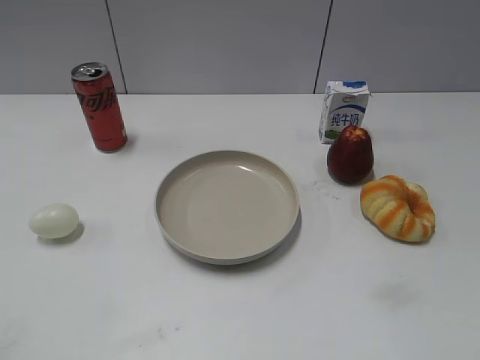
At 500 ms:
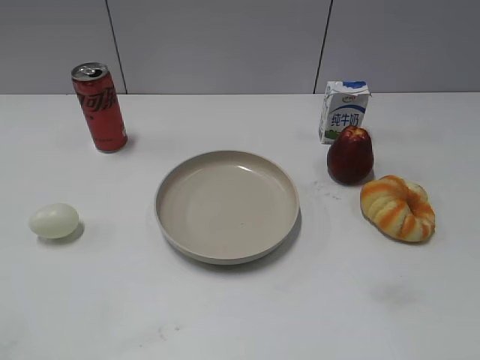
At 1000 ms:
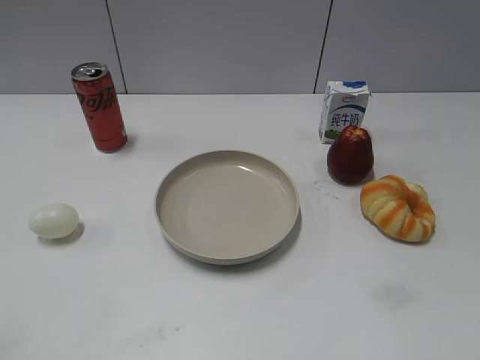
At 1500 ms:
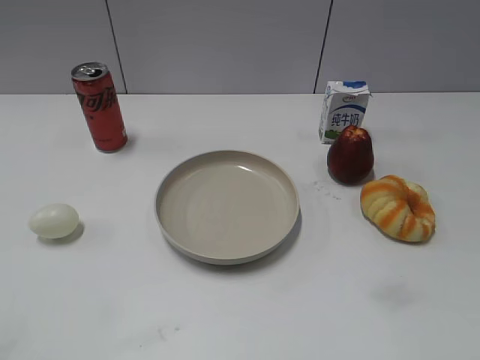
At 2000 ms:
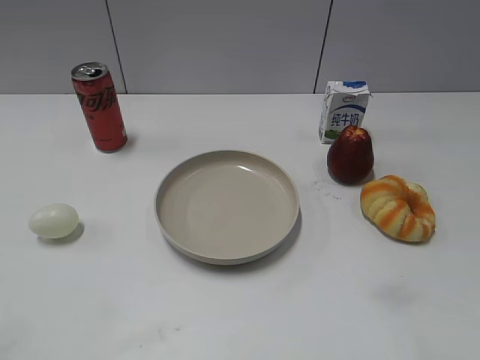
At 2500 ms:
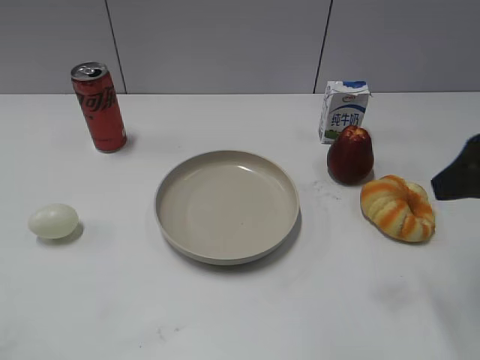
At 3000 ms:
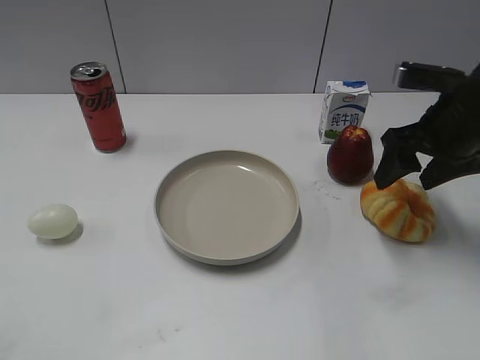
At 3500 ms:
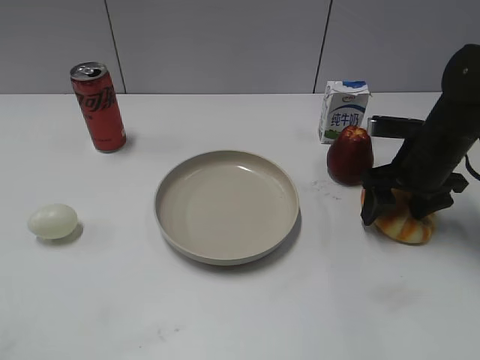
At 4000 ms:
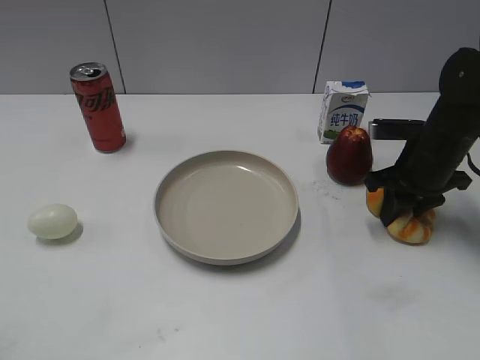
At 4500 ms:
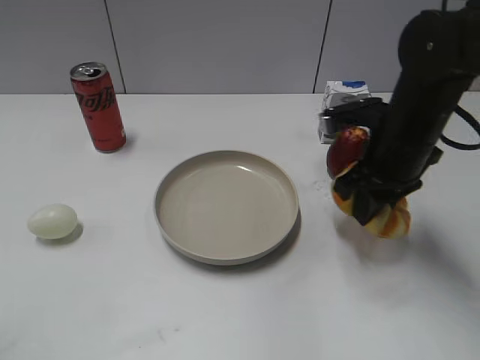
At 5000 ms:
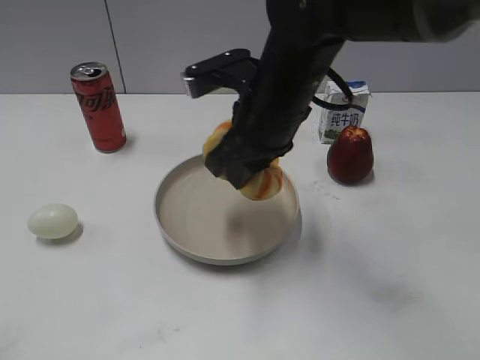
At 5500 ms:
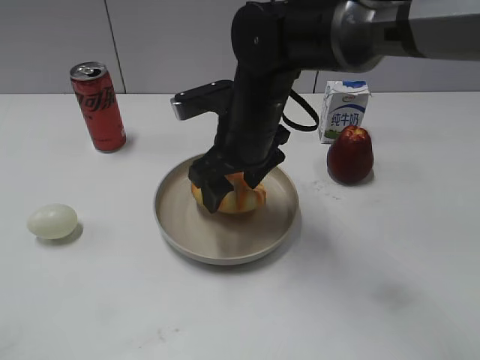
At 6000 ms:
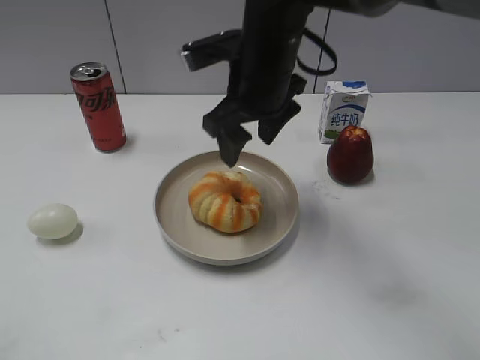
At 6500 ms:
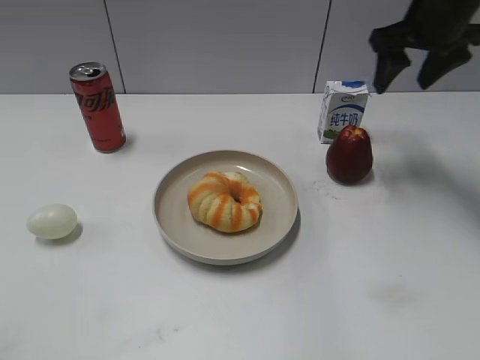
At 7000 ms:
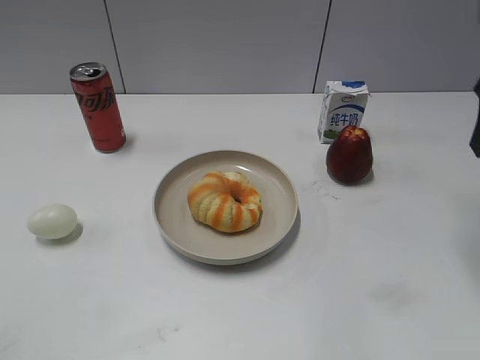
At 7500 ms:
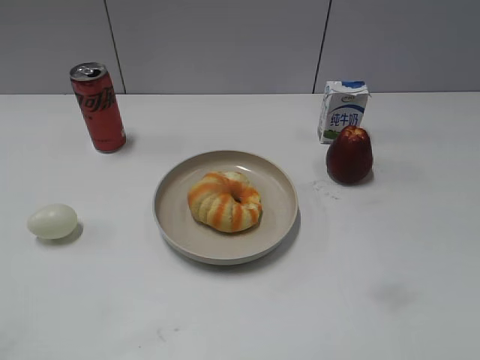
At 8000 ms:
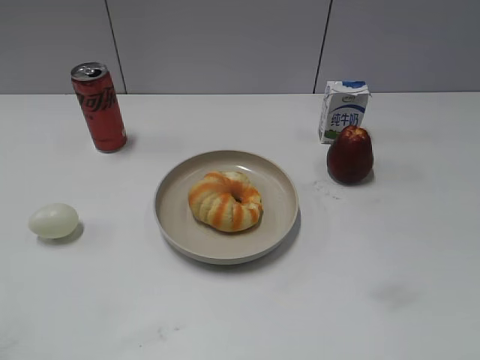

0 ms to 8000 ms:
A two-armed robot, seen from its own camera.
Step, 1500 ms to 4000 ms: Grasp the round bread with right gripper.
Step, 4500 ms to 5500 ms: Place the round bread on the plate with right gripper.
2000 ms to 4000 ms: The right gripper goes about 35 cm forward and downward, and closes up.
4000 ms to 6000 ms: The right gripper is displaced to the left and upward by some 25 cm, and opens up.
6000 ms to 8000 ms: The right gripper travels to the right and backward by roughly 40 cm.

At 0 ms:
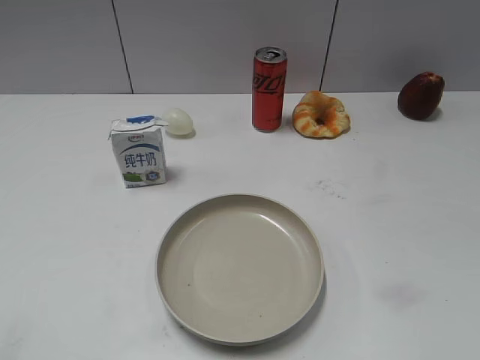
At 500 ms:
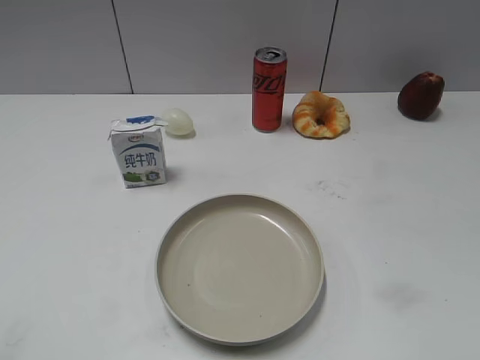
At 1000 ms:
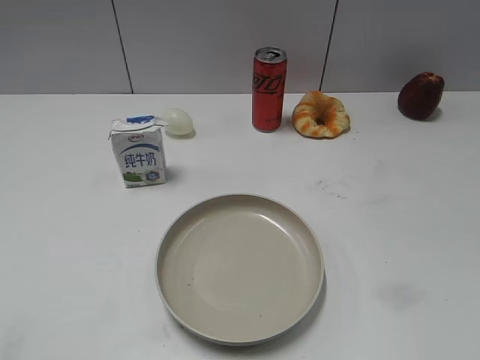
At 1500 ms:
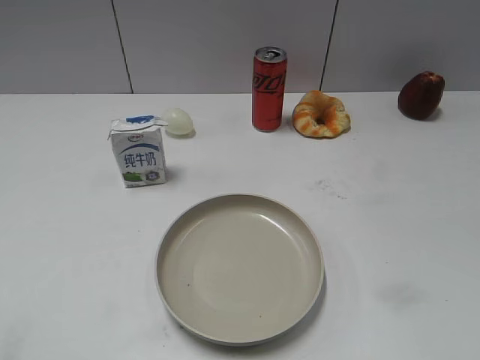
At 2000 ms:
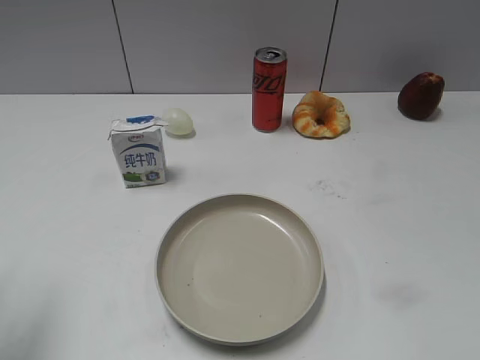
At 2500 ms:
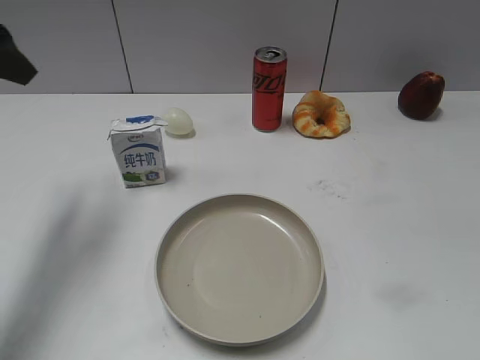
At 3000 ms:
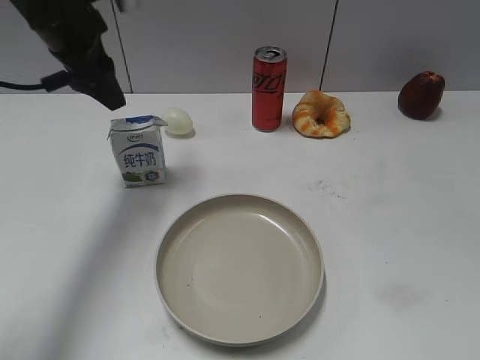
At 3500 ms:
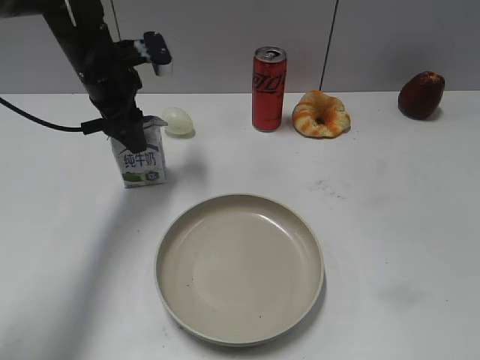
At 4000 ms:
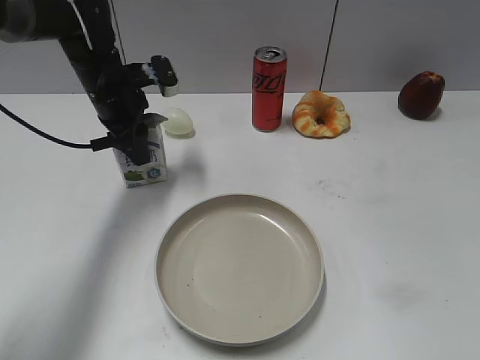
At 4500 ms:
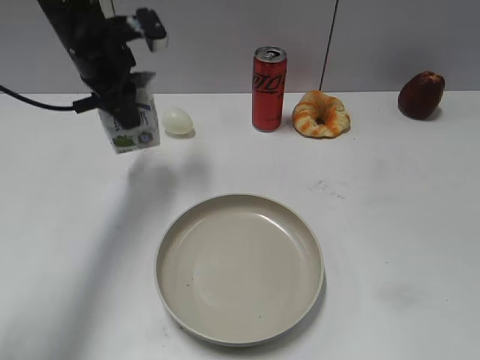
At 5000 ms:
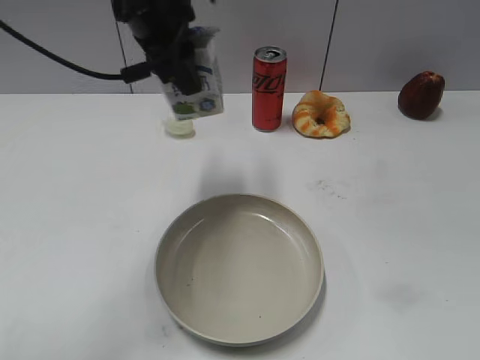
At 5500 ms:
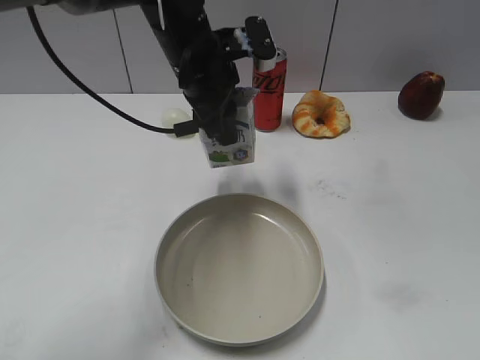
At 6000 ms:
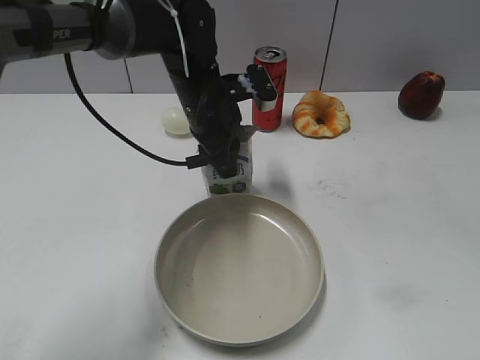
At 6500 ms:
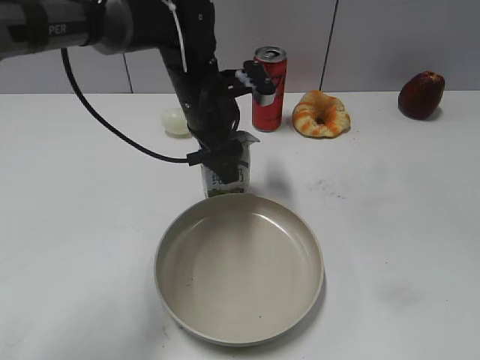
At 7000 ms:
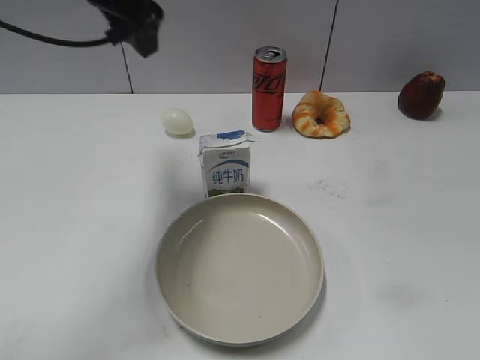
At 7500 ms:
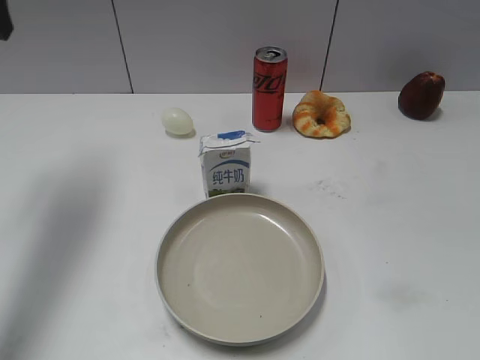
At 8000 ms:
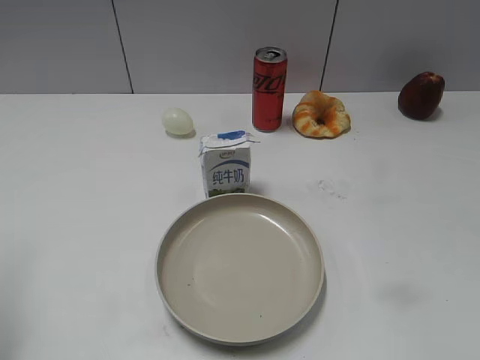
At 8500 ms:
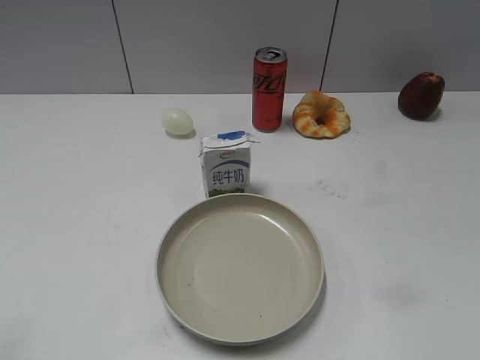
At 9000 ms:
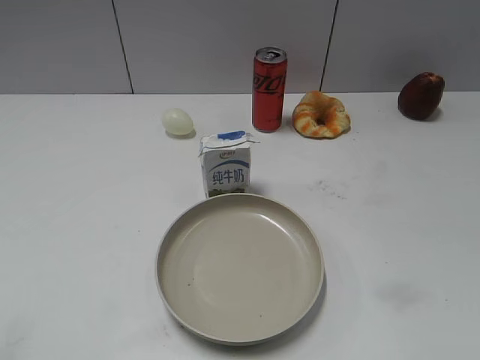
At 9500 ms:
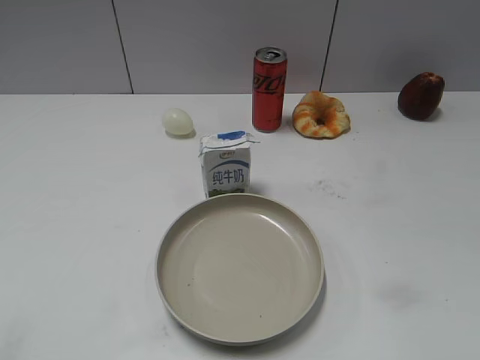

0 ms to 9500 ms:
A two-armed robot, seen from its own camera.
Step, 1500 ms to 4000 ms: Grasp the milk with left gripper.
Step, 4500 ms to 6500 ms: Place the milk on the table with left gripper.
2000 ms to 4000 ms: The left gripper heads forward, downward and to the right, covering approximately 35 cm, and closes up.
4000 ms to 5500 ms: The left gripper heads to the right, upward and backward, covering approximately 15 cm.
5500 ms to 7500 ms: The left gripper shifts roughly 30 cm to the left and upward, and opens.
7500 ms to 9500 ms: The left gripper is displaced backward by about 35 cm.
